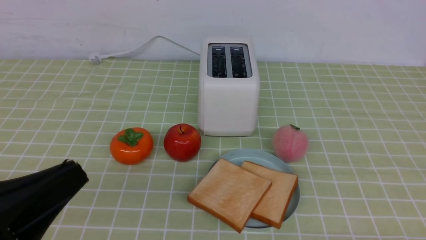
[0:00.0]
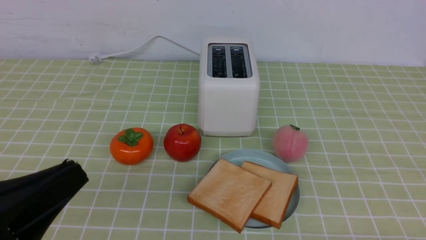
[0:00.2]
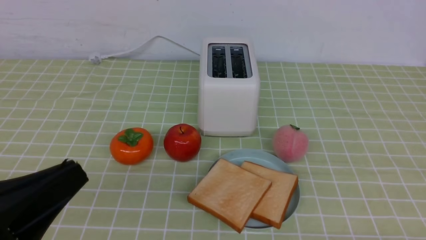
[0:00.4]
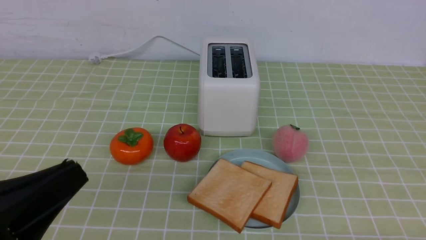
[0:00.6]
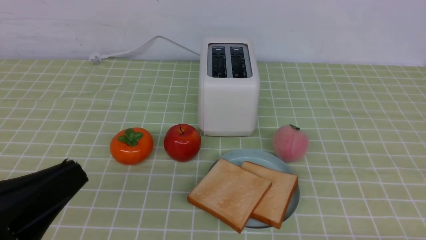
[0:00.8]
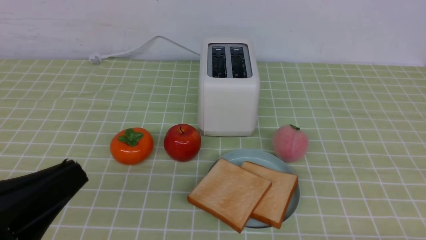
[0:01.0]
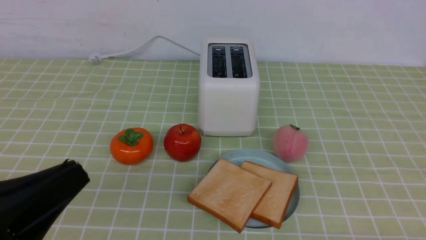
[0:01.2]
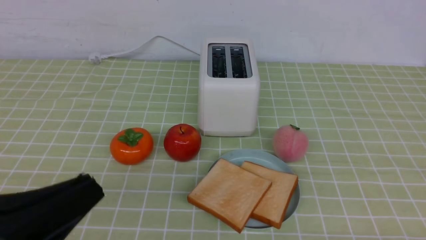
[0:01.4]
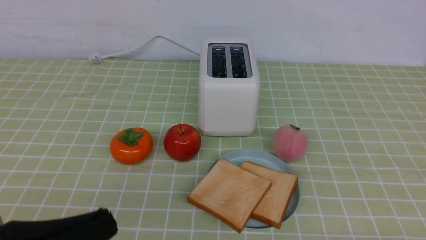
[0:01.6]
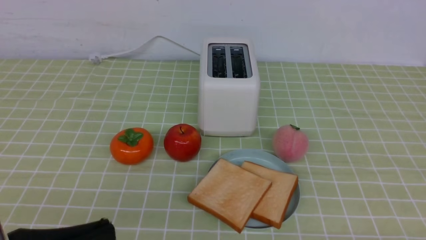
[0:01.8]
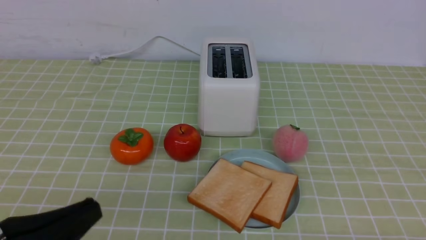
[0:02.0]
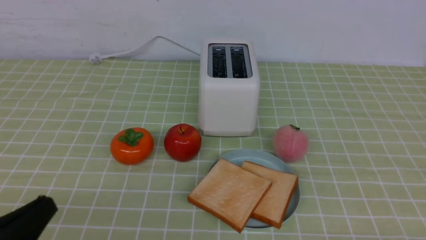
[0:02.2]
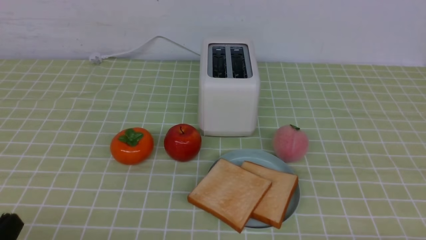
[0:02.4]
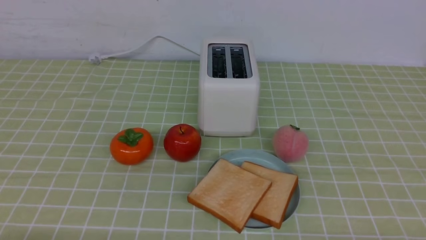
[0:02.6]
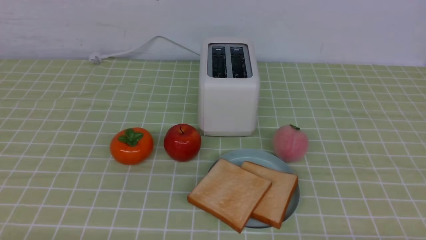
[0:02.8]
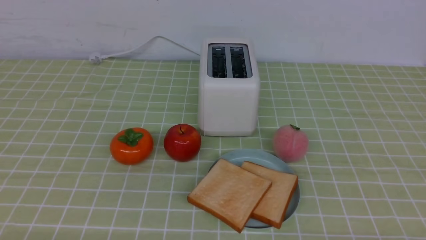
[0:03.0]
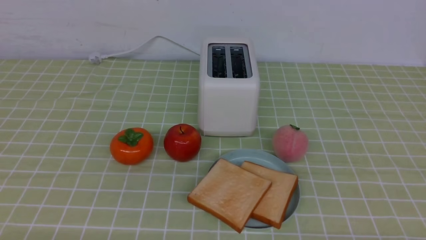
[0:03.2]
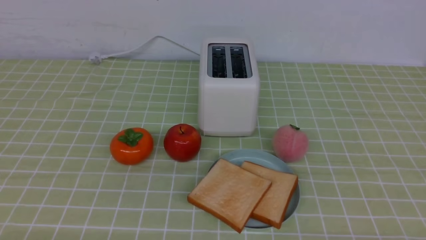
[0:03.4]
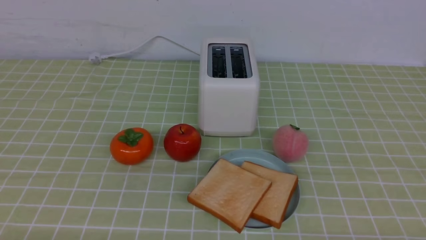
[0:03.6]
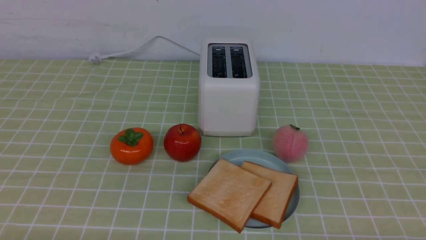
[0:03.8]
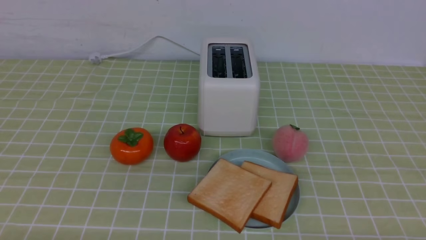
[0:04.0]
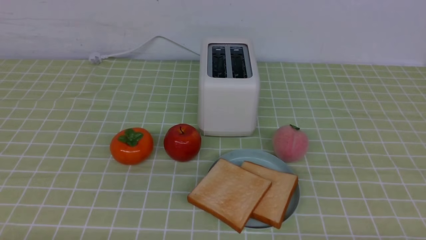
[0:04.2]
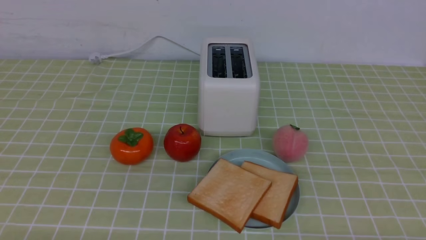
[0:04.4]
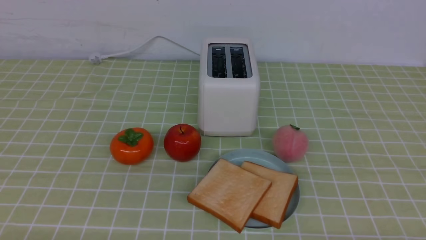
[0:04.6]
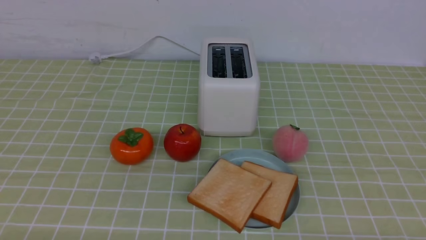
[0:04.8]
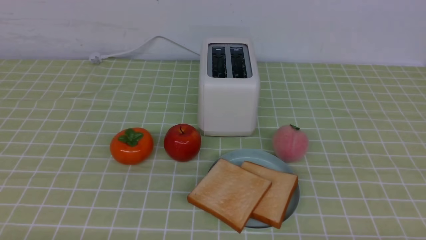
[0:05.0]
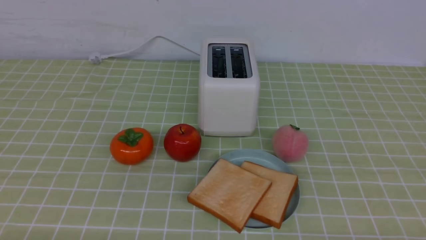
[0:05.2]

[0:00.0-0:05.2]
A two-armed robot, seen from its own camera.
Task of the whole recording: take toasted bread from bread machine on green coffee tablecloth place on plate.
0:00.0 to 0:01.8: The grippers move only a little.
0:01.8 to 0:03.4: The left gripper travels downward and to the left by roughly 15 cm.
0:03.4 to 0:05.2: Neither gripper changes place.
